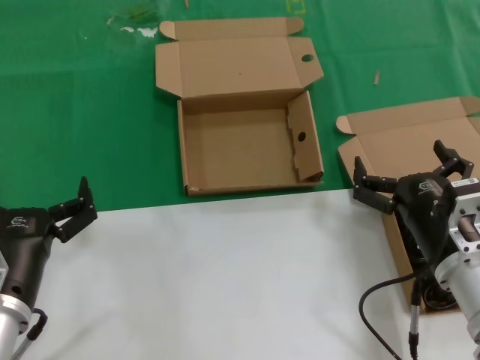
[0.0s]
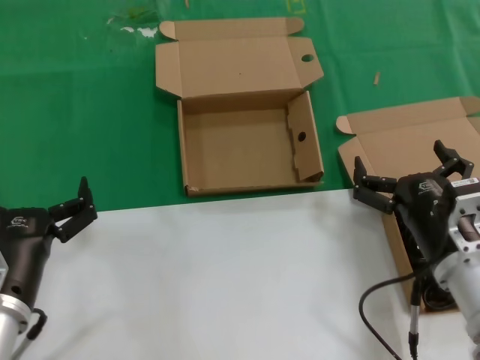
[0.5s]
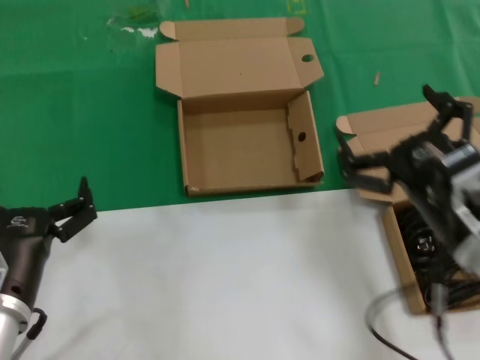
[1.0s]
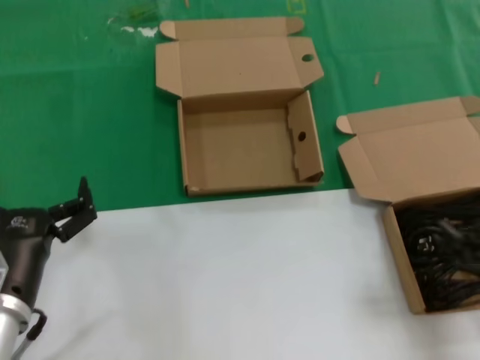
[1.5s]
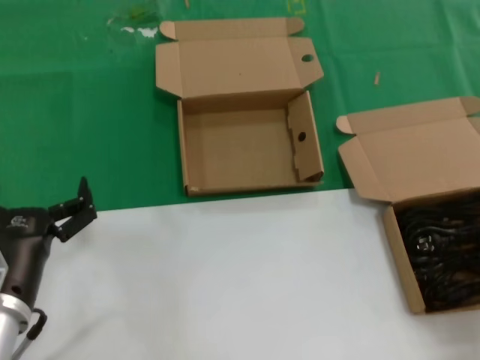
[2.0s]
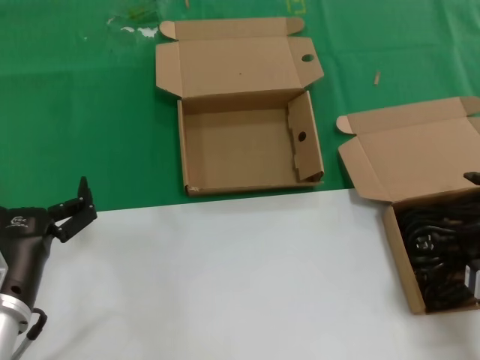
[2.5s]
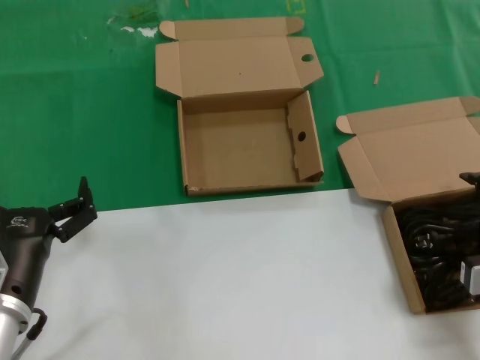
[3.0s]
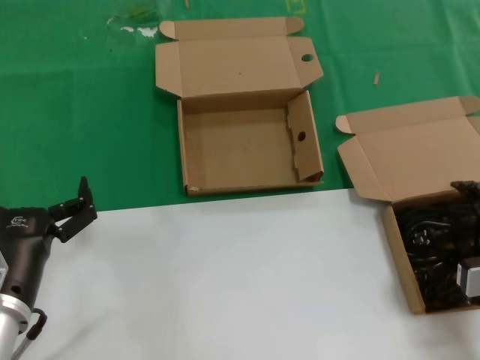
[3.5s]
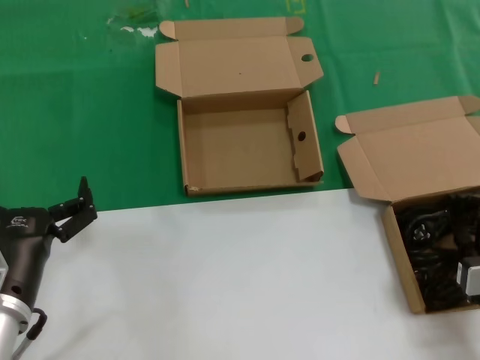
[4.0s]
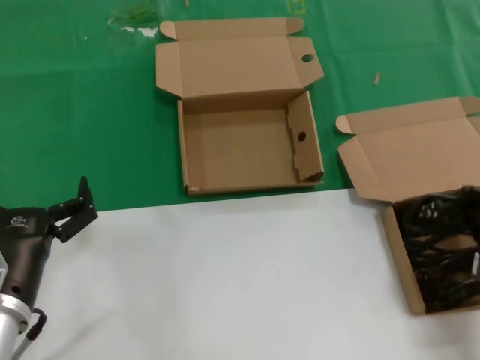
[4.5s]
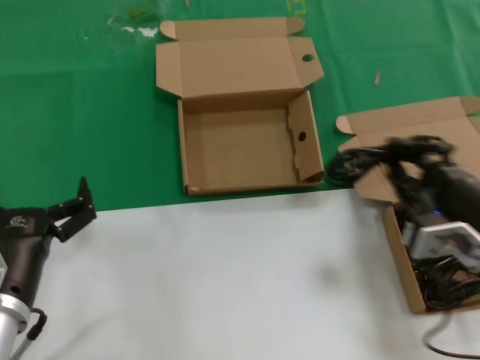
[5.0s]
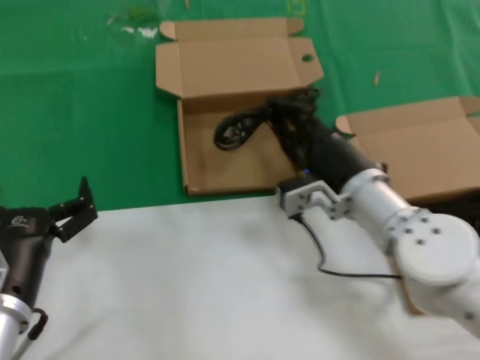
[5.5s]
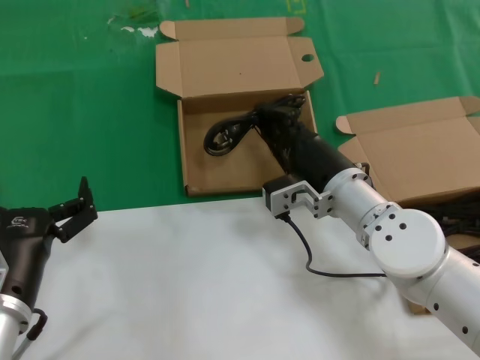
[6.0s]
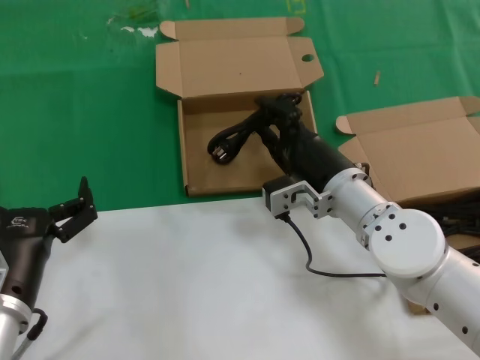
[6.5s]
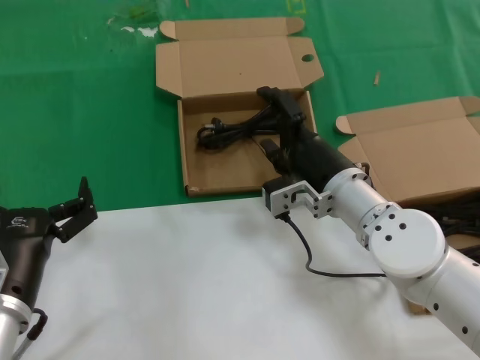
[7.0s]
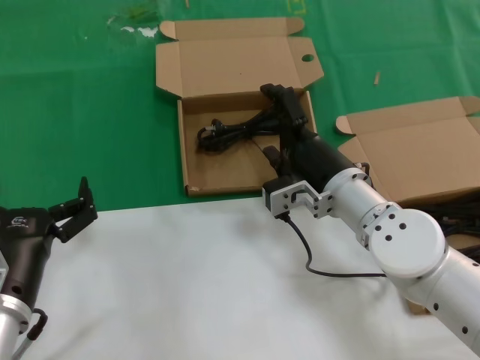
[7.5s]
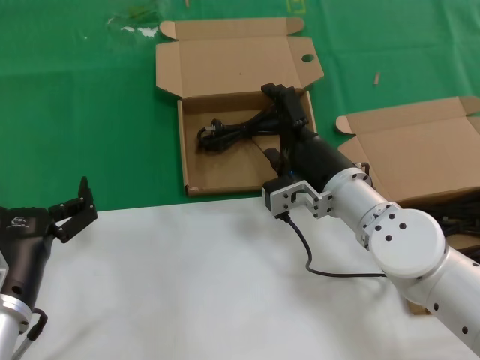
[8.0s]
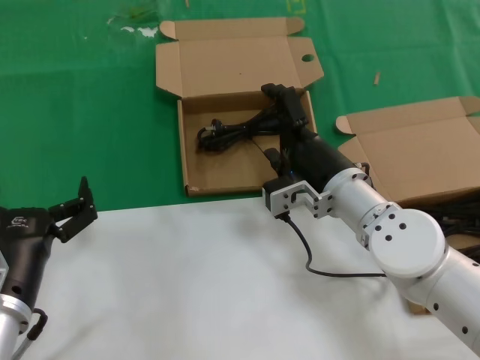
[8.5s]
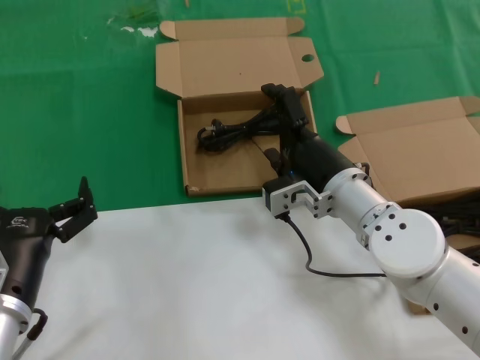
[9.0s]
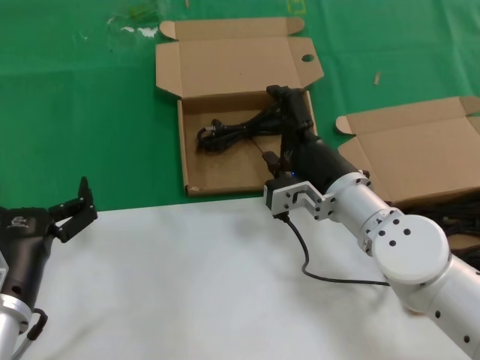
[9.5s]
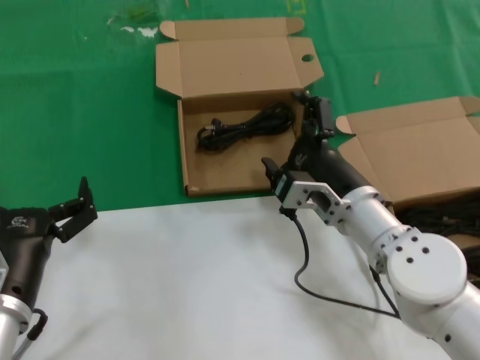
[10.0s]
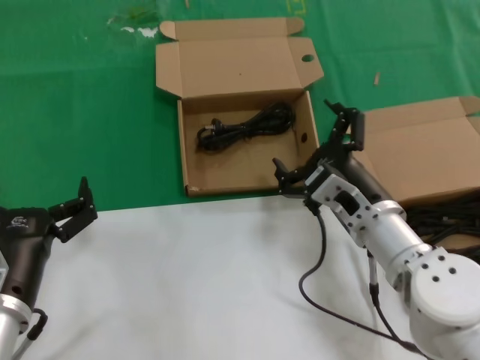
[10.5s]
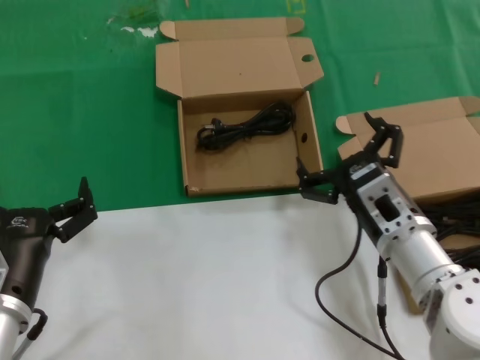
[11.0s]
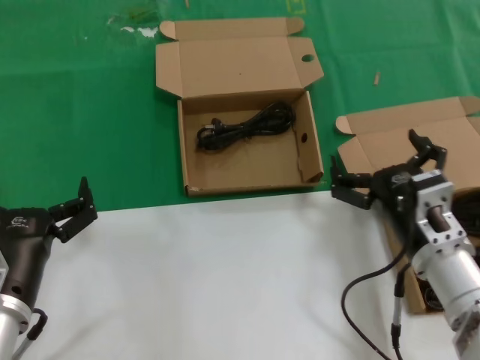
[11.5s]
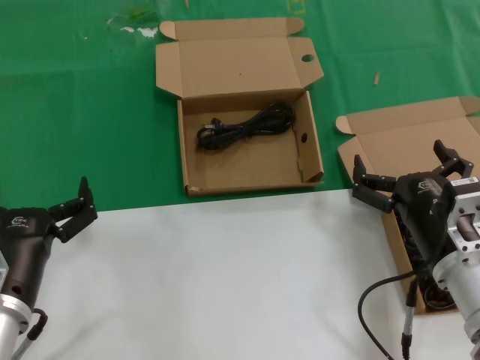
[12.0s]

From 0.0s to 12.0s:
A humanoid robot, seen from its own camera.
Task of the whole recording: take the parts from the box containing them and put them into an empty box.
Step, from 0.0s to 4.0s: Grasp the data cable.
Step, from 4.5s to 8.0s: Place the data cable in the another box.
From 0.0s to 2.0s: The right hand is displaced to the right and backward by about 15 cm.
From 2.0s to 4.0s: The right hand shifts by roughly 5 cm.
From 4.0s to 6.0s: The right hand moves to the left and forward, some 25 cm.
From 6.0s to 8.0s: Neither hand changes place.
From 10.0s to 12.0s: The right hand moves backward and to the right, roughly 15 cm.

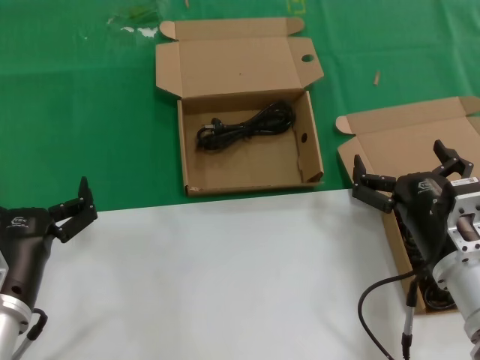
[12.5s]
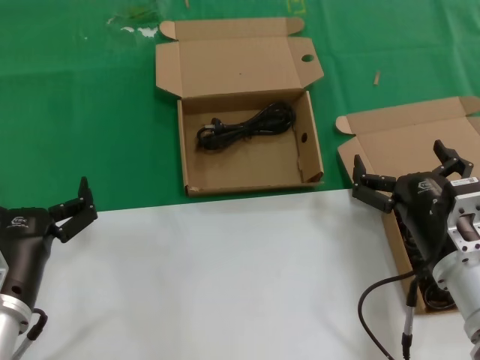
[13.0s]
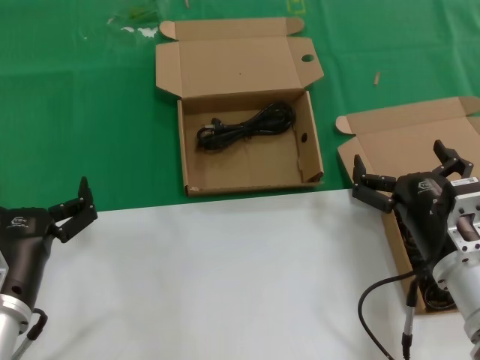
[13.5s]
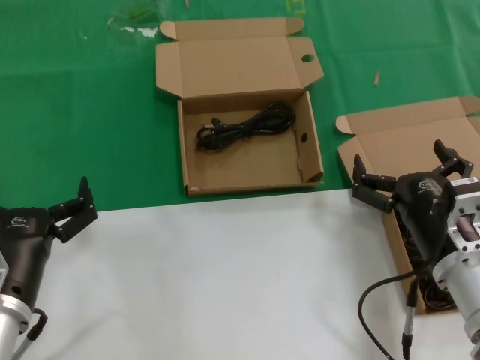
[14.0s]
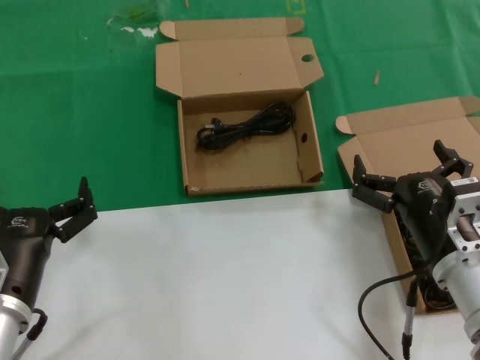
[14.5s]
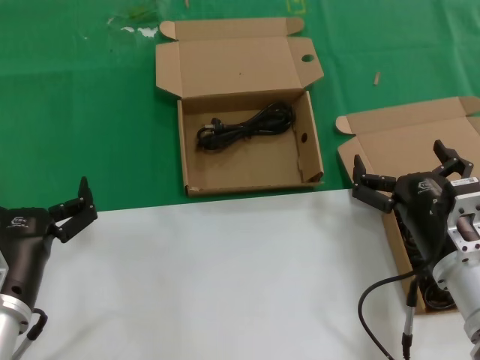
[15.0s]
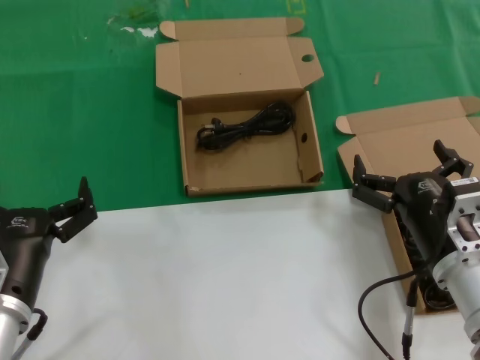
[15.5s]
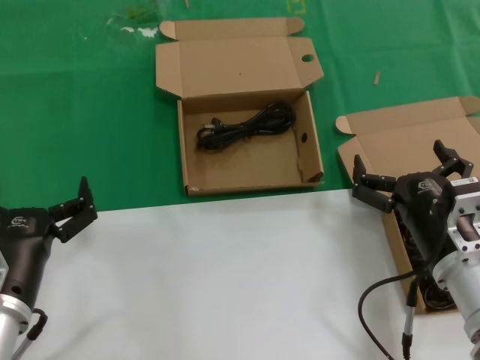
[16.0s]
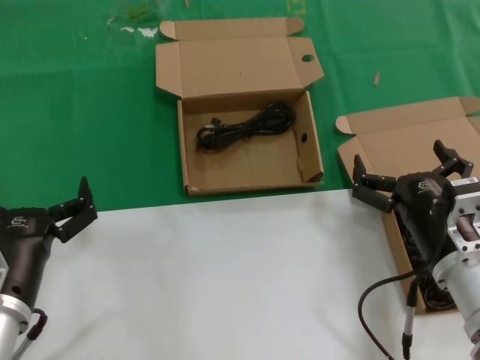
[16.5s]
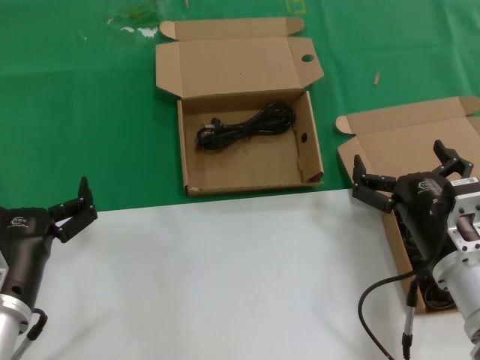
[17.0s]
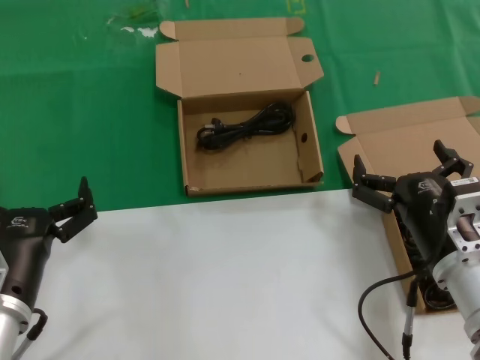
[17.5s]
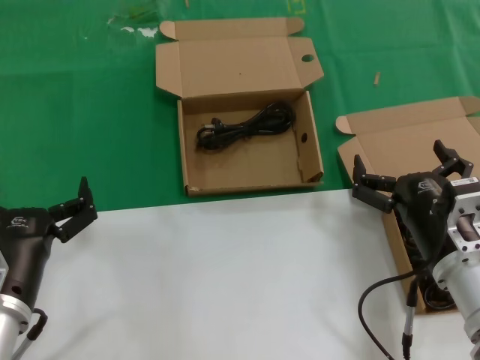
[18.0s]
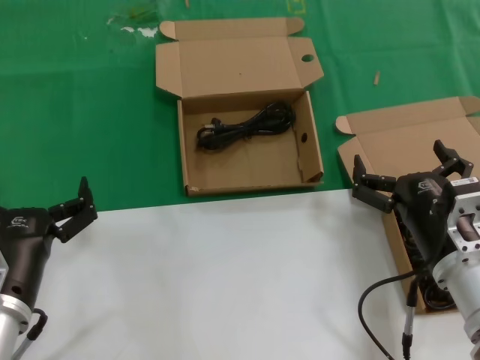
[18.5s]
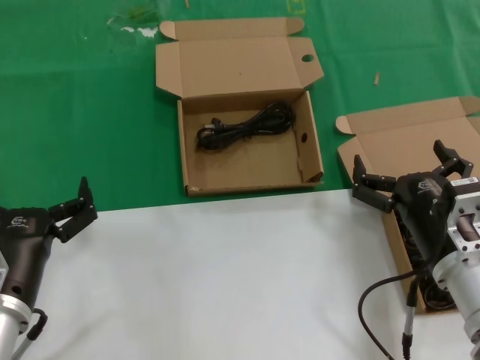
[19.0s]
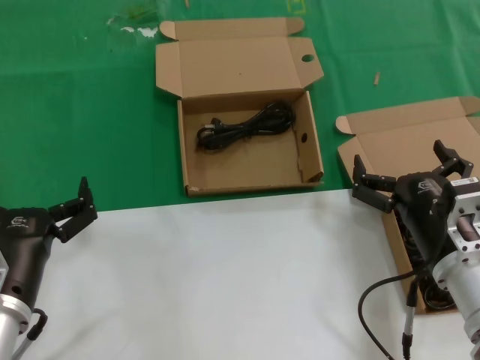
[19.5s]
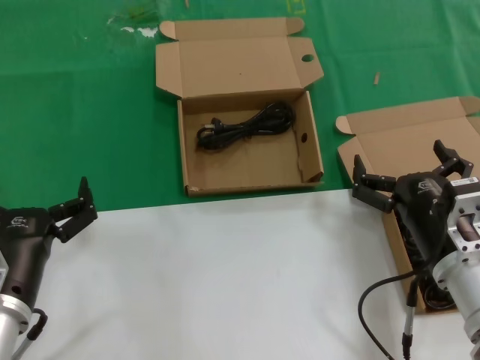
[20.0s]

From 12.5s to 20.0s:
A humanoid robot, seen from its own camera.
Task of the whole recording: take the parts from the box containing them and put them into an empty box.
From 12.5s to 20.0s: The two hands keep their place.

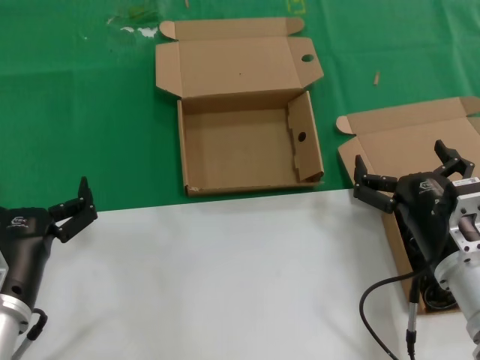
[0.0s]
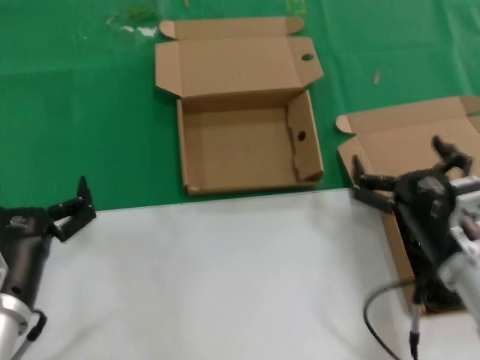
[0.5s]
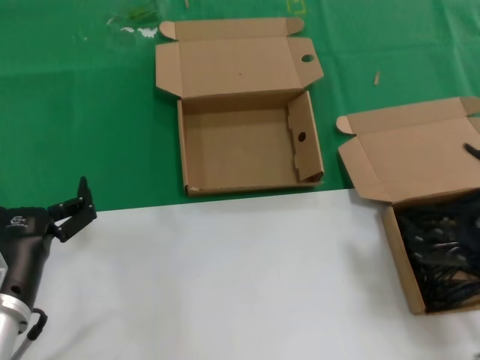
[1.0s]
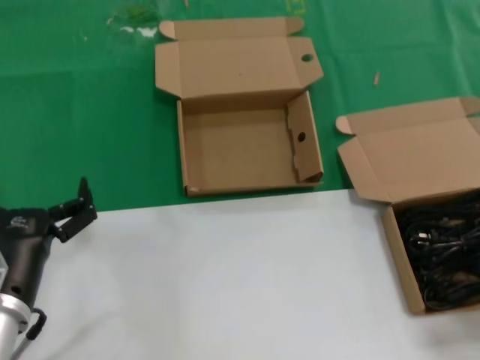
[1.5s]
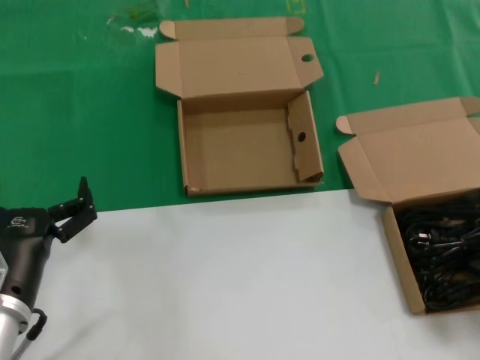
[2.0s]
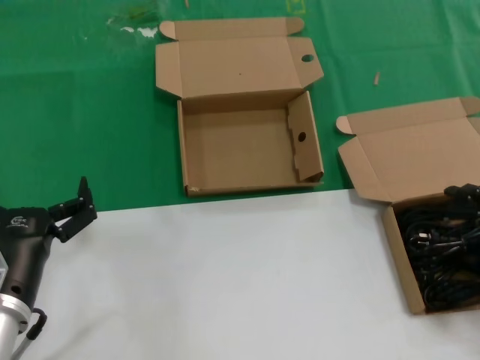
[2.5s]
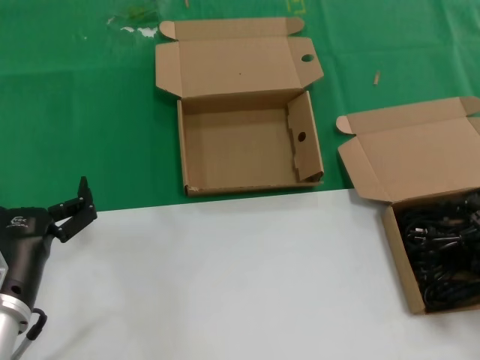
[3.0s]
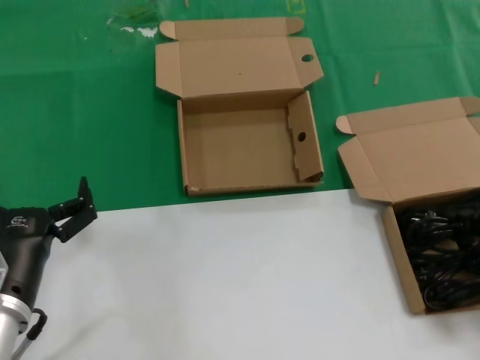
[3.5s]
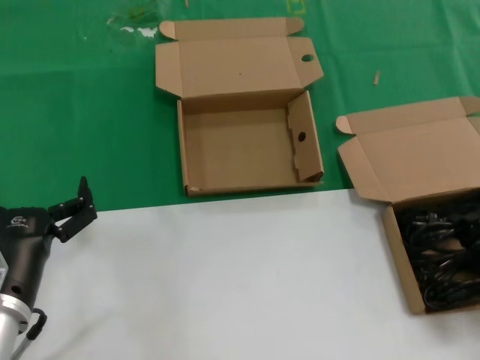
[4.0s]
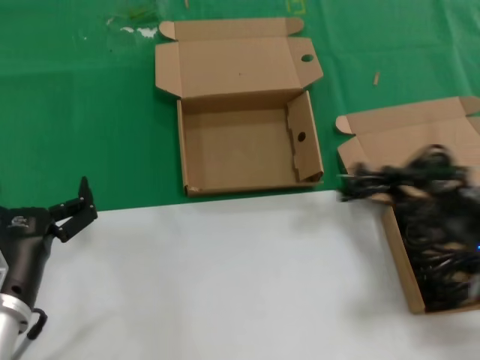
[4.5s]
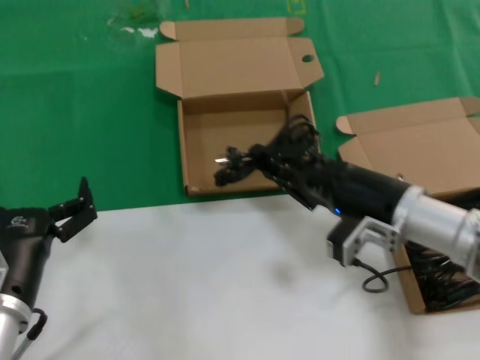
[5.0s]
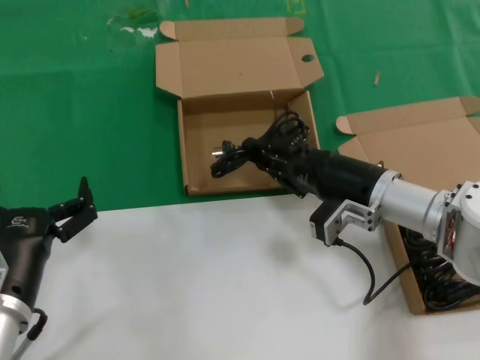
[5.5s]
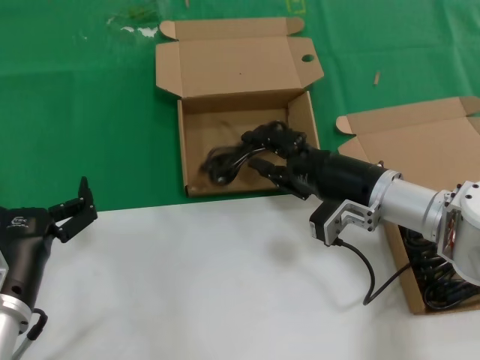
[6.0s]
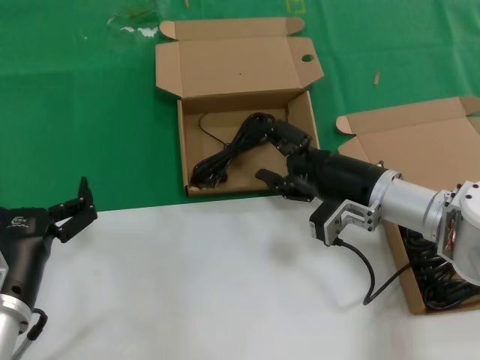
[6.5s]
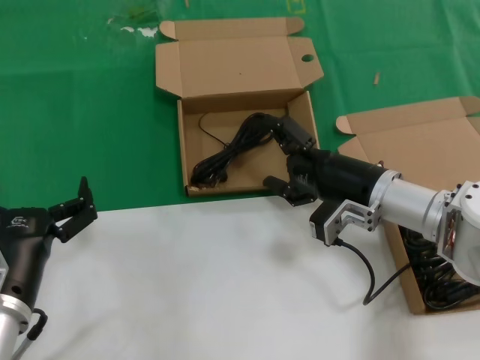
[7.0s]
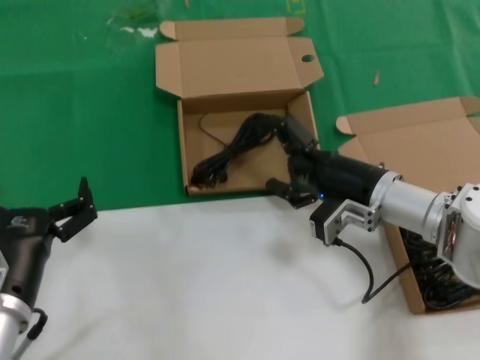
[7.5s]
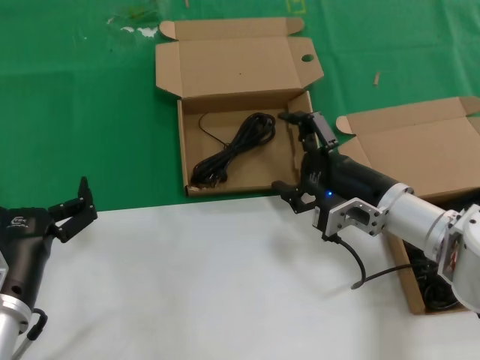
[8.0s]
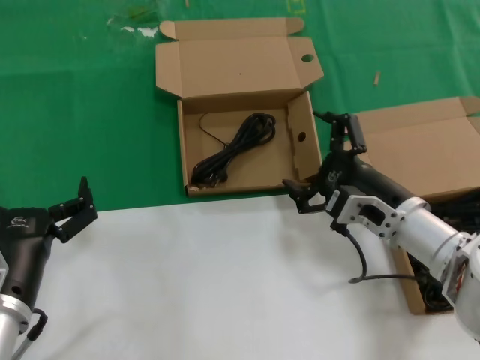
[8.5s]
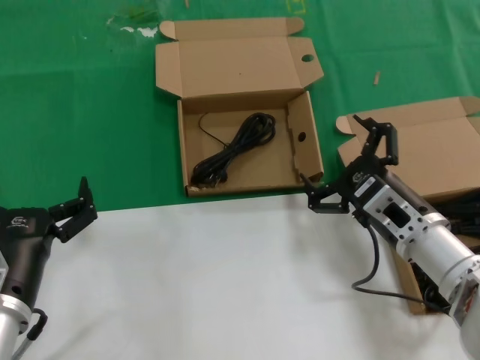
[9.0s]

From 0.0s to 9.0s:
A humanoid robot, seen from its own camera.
Task of the whole recording: take the parts from the box containing them and put them into an empty box.
Step, from 0.0s to 4.0s: Grasp the data cable.
Step, from 4.5s to 6.5s: Place the data cable in the another box.
From 0.0s to 2.0s: The right hand goes roughly 20 cm to the right.
From 2.0s to 4.5s: The right hand moves to the left, approximately 5 cm.
From 4.5s to 7.0s: The right hand shifts about 25 cm forward and to the left.
From 7.0s to 9.0s: The right hand is displaced backward by approximately 10 cm.
